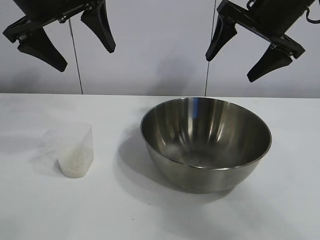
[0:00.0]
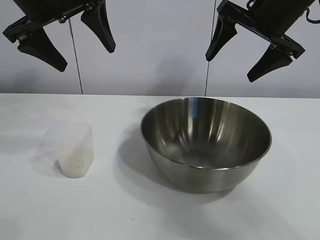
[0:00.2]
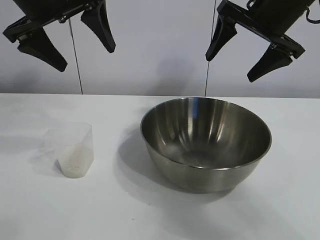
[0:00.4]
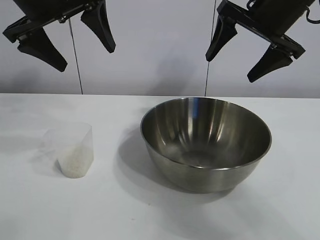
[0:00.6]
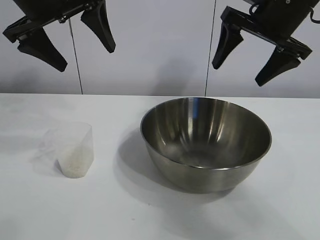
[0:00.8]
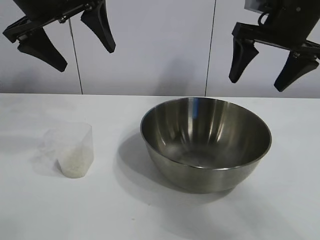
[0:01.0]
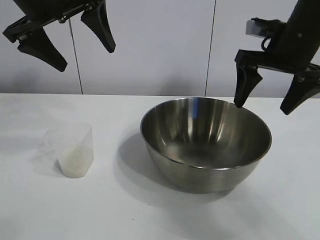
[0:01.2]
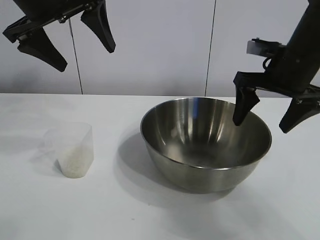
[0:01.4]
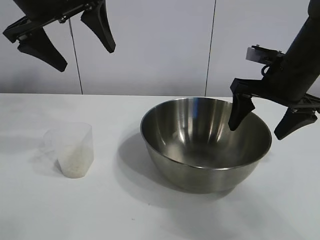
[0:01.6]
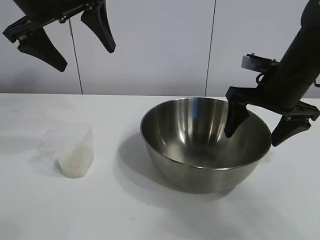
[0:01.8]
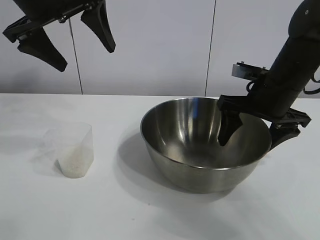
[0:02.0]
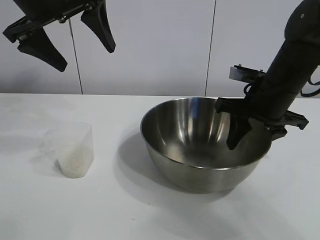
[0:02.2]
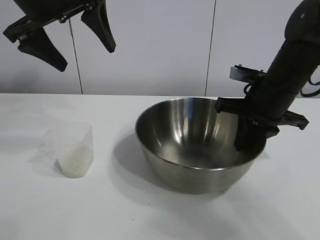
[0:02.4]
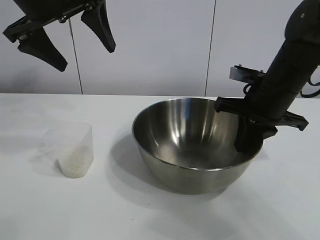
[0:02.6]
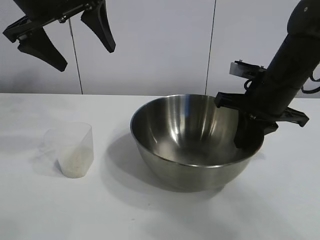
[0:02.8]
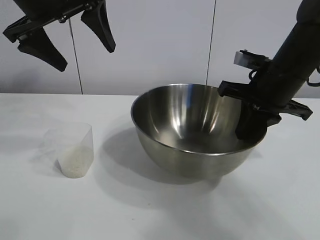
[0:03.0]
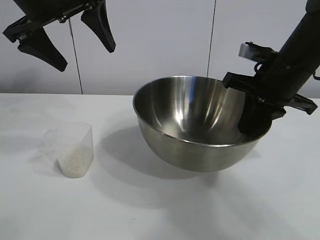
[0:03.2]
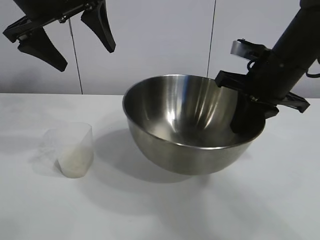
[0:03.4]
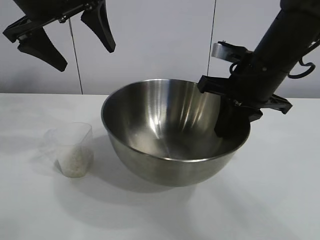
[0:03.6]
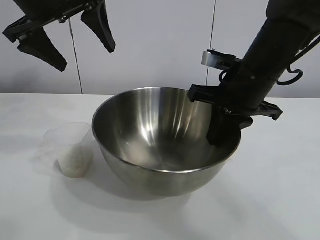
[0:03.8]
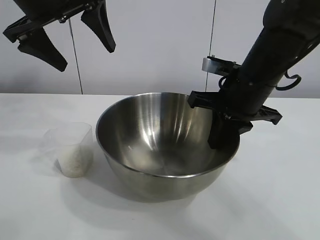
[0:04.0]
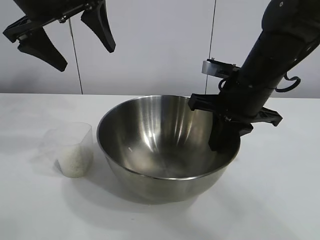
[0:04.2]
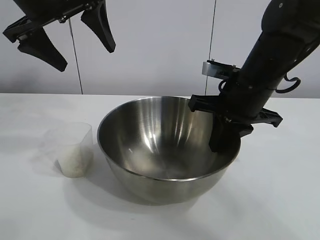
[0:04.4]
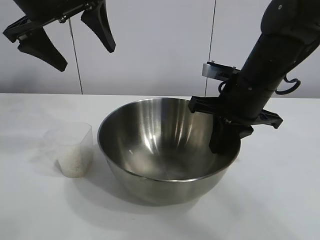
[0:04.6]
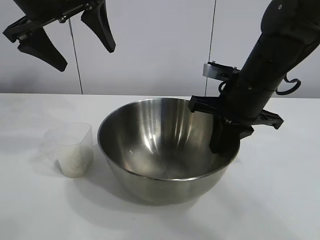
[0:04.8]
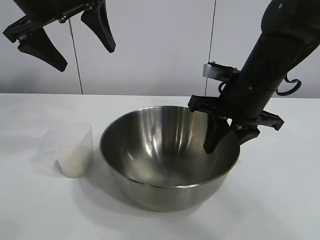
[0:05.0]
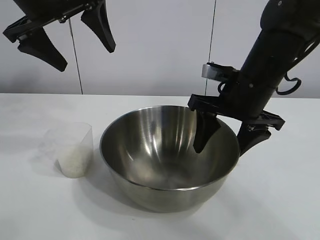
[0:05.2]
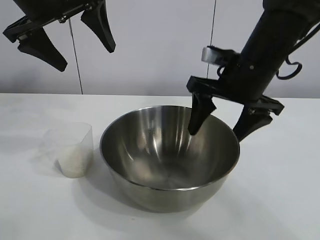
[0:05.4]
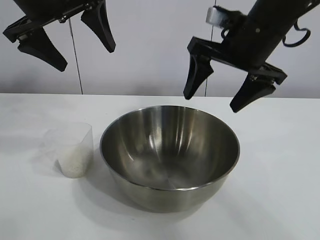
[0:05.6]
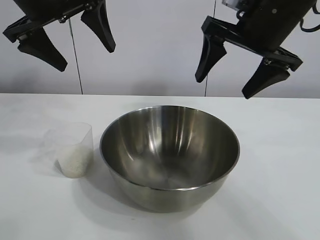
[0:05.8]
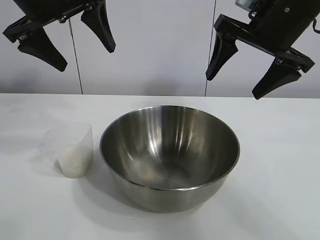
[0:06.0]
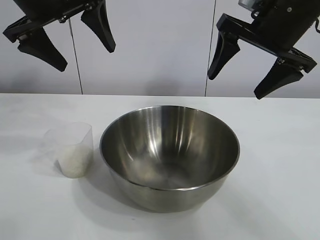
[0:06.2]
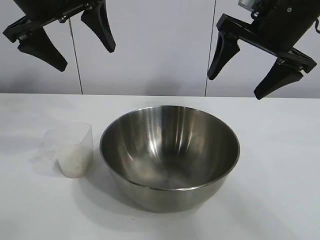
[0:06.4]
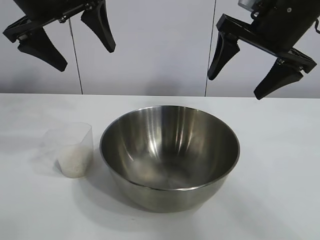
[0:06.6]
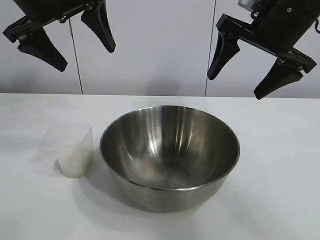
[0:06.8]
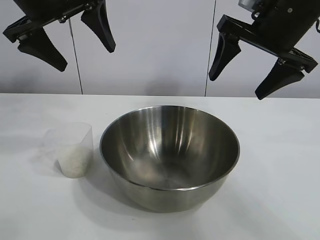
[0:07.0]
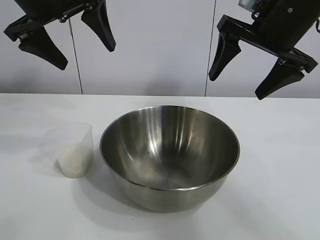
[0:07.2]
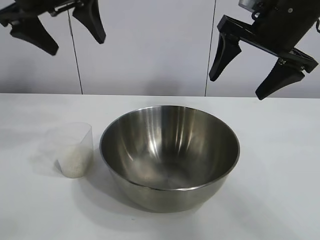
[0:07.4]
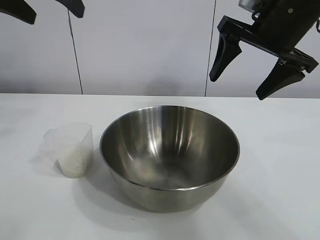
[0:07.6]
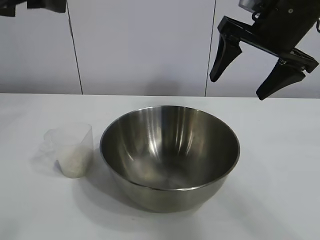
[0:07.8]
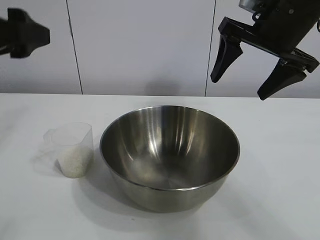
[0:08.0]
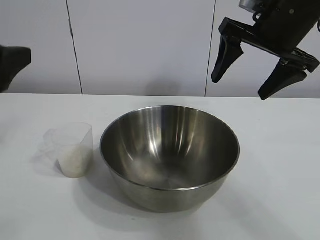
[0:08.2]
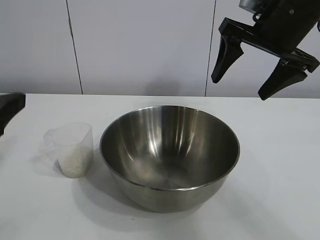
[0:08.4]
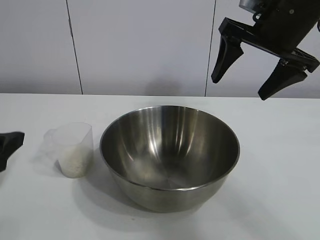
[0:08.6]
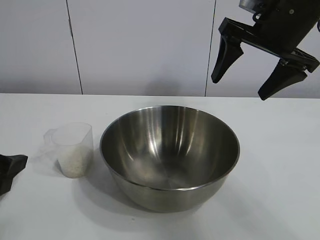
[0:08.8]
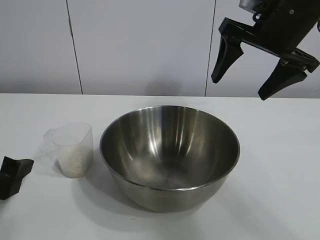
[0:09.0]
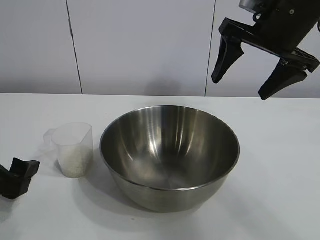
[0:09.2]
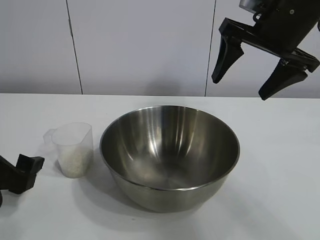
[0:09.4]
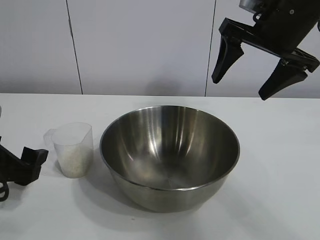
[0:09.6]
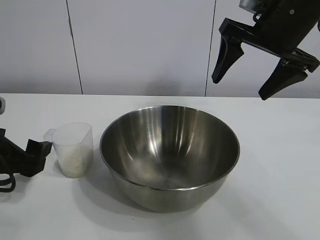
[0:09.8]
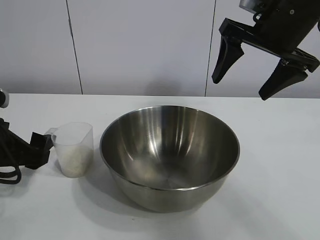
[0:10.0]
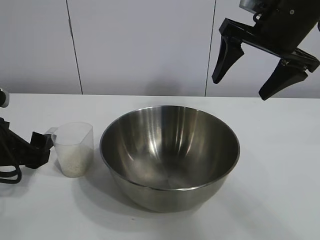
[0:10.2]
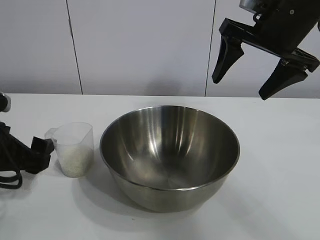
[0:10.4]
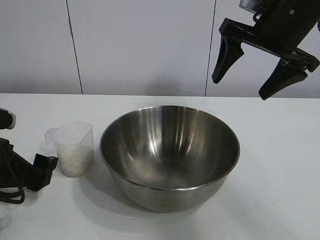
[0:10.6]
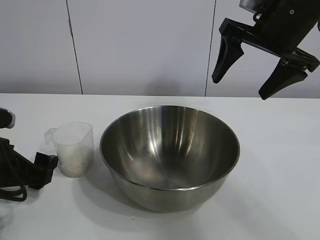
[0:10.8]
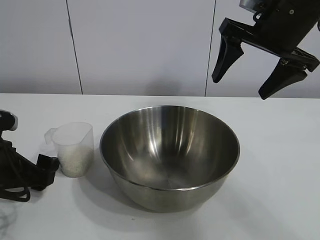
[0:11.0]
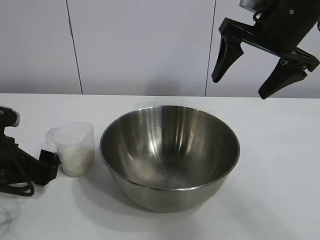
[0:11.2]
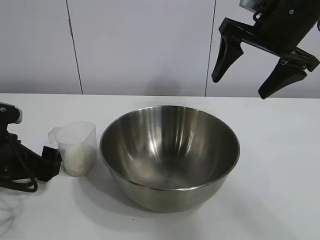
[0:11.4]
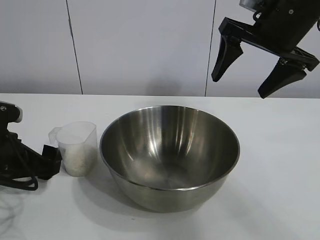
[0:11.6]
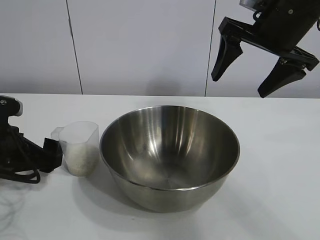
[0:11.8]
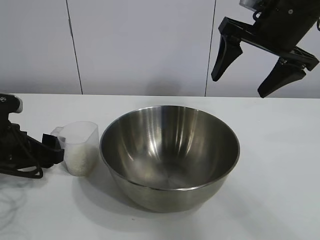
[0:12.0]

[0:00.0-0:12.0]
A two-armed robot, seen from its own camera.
Task of the whole recording: the right gripper grasp the rice container and place it in the center of the table, the left gripper grasp the rice scoop and pour the rice into the rice container.
Step, 0:00.8 to 0:05.0: Move the bowl in the center of view with right gripper.

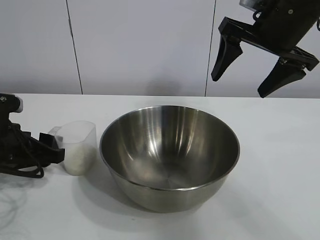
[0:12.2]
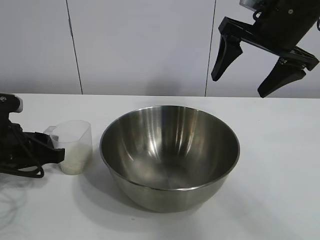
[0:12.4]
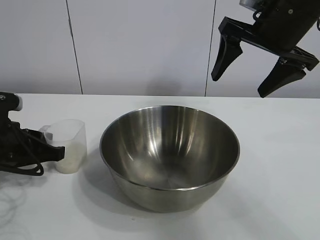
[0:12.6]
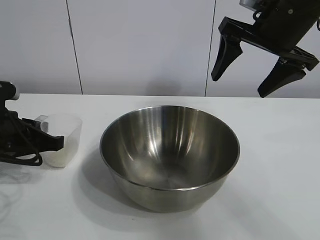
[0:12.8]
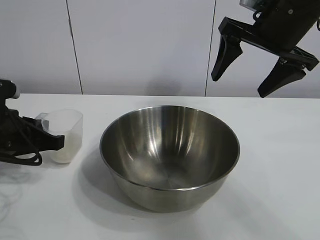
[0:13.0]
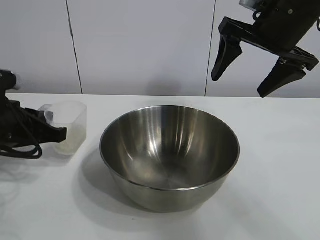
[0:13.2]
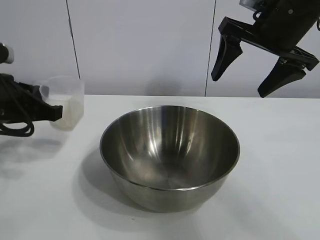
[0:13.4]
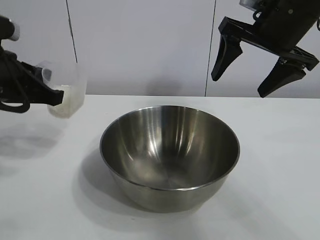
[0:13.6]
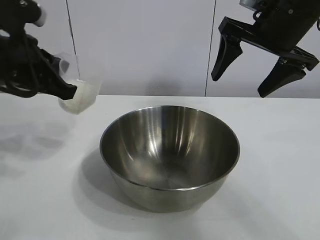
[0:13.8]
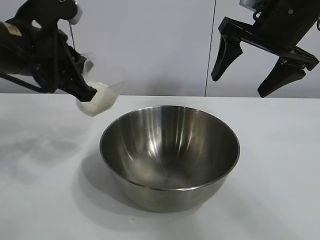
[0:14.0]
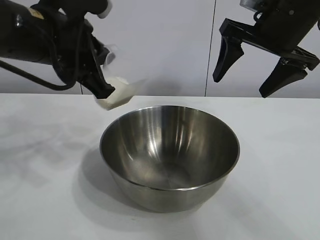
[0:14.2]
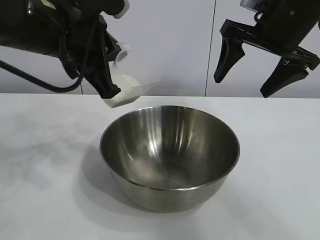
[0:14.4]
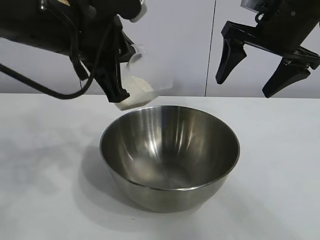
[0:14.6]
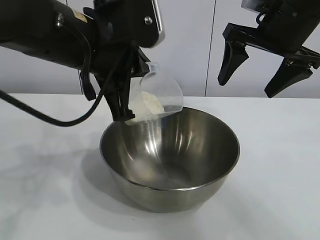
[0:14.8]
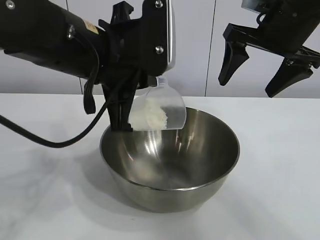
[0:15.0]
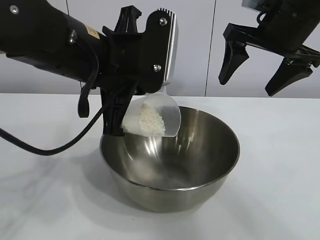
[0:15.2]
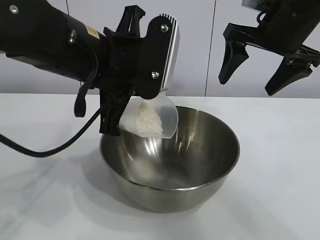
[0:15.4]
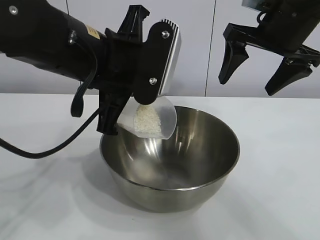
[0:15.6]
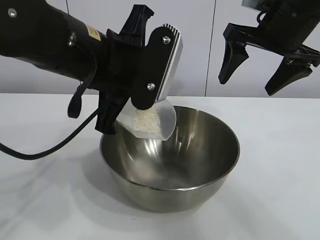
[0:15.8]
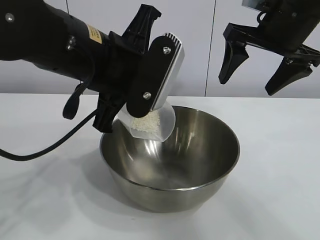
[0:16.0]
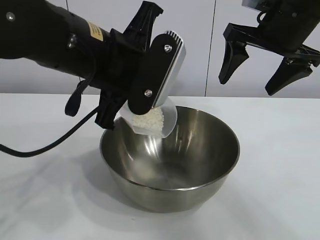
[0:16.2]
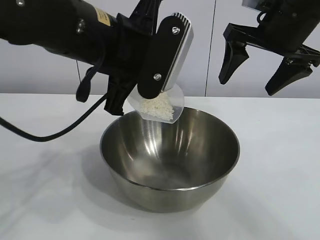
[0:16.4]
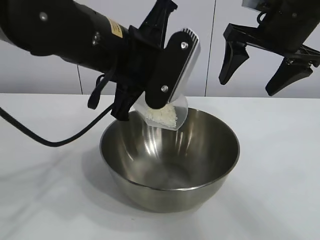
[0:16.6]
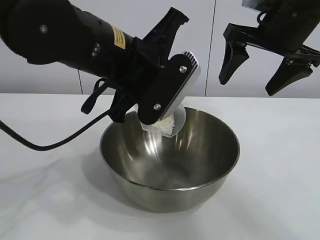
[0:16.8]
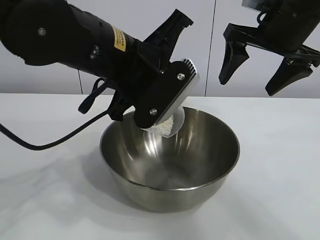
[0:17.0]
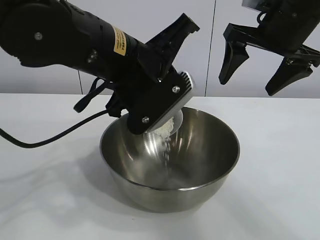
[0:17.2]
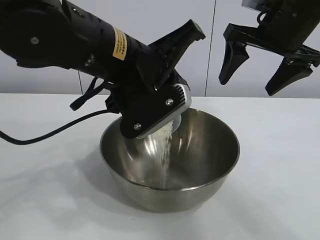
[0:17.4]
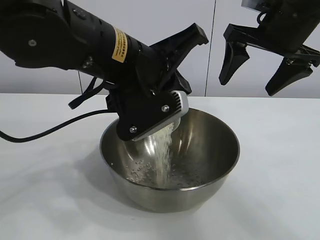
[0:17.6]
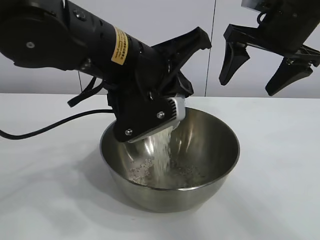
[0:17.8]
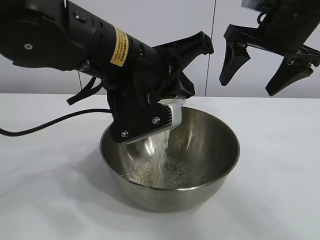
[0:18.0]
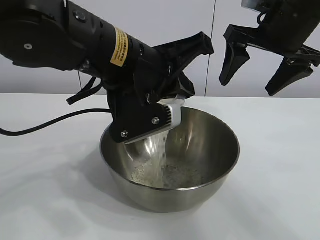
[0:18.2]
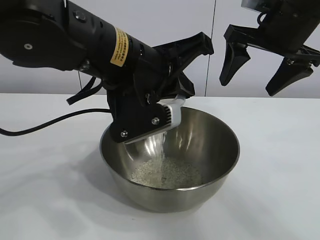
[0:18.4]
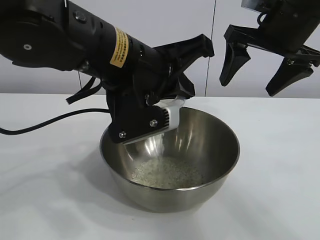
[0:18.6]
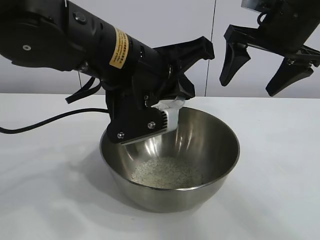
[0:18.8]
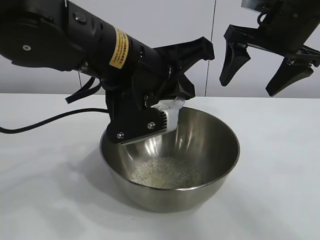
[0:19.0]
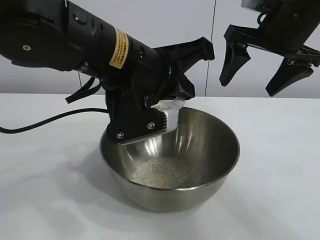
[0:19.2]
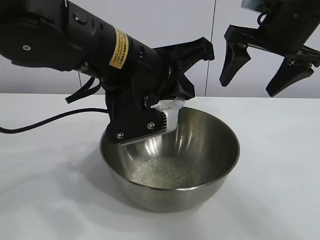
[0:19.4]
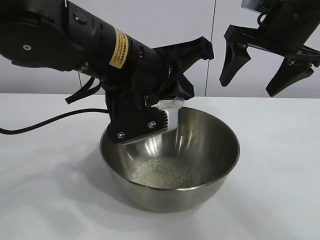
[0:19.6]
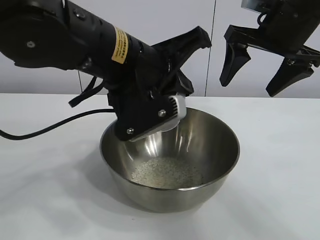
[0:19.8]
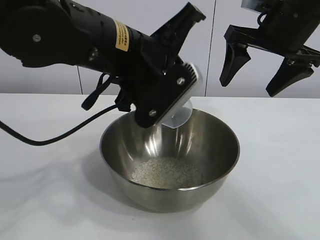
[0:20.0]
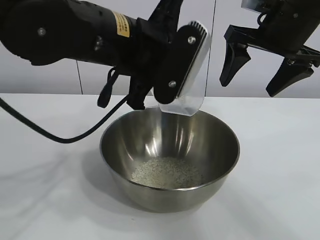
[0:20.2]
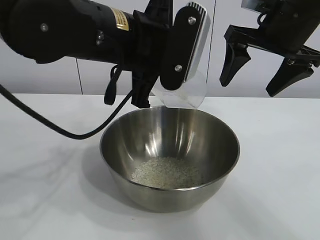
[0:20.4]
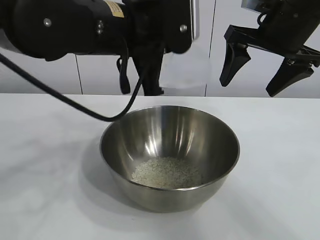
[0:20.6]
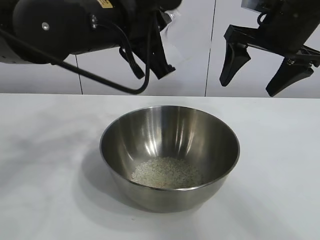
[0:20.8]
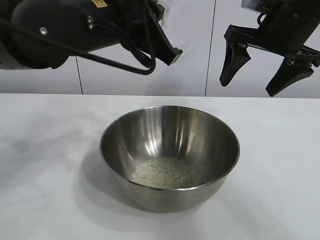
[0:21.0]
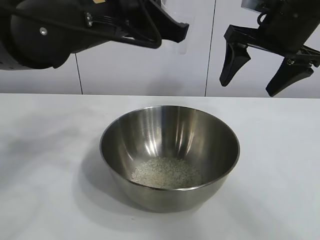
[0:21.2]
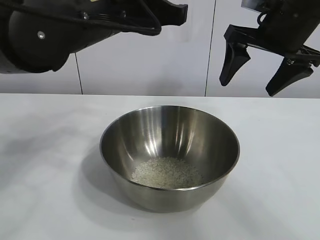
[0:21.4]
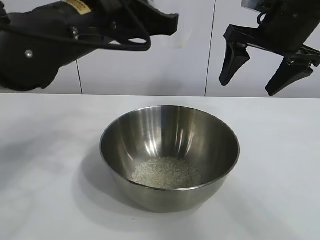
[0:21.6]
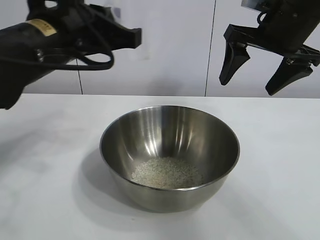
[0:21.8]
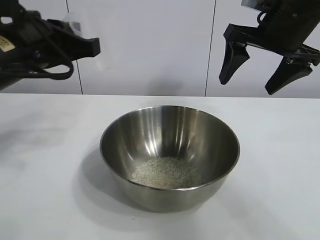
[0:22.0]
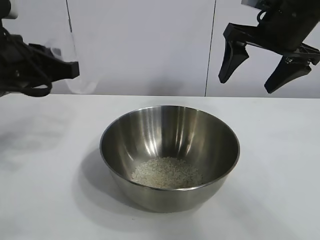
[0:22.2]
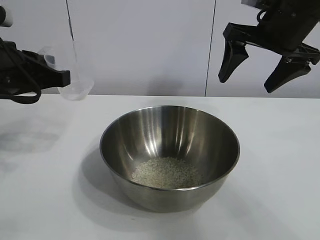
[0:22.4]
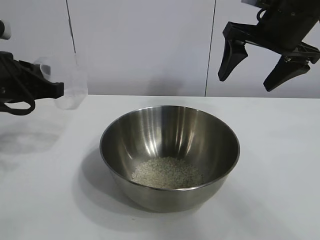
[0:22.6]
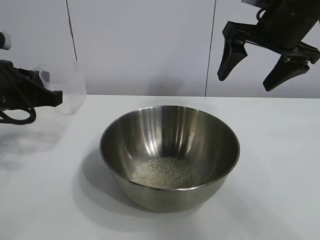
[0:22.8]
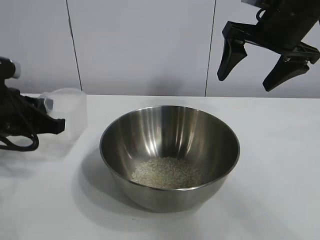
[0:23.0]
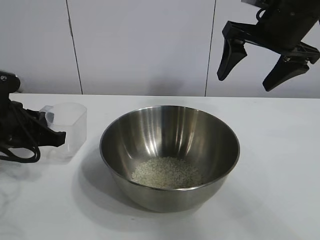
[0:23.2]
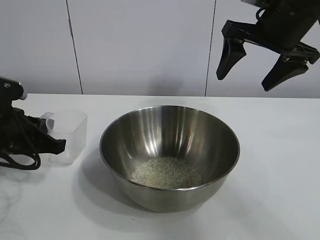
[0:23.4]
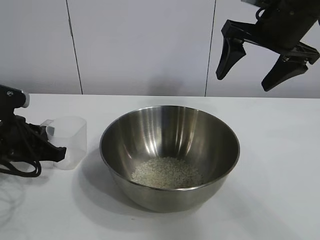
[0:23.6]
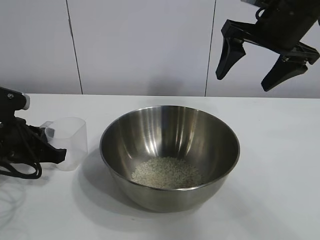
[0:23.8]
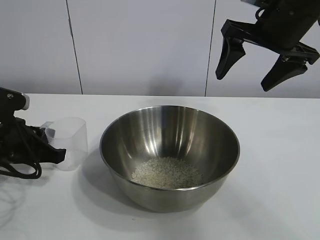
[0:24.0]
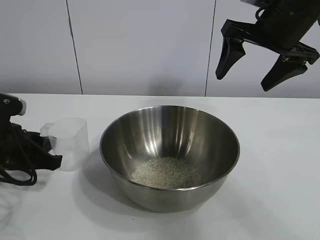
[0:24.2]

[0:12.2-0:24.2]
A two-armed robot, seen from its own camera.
Task of the whole recording: the right gripper grasp the rice container and place it in the center of the table, the left gripper grasp the rice scoop and pour the rice into the rice container.
Step, 0:13.0 to 0:19.4: Pour the rice from the cup into the bowl with the left gripper.
